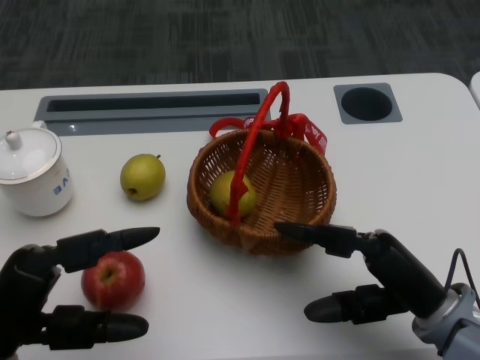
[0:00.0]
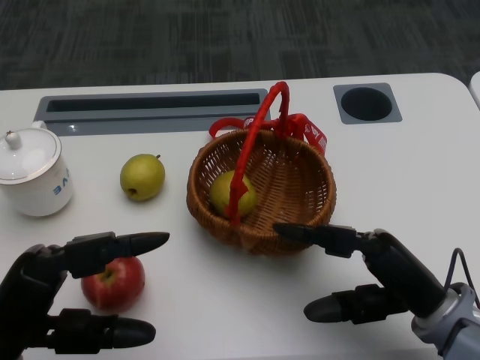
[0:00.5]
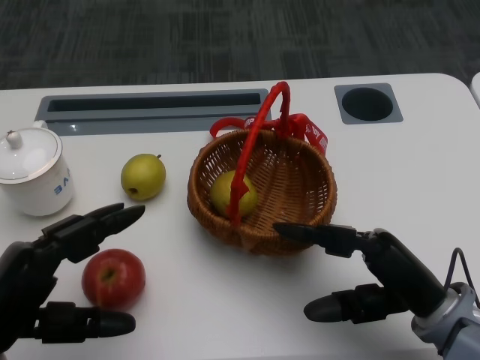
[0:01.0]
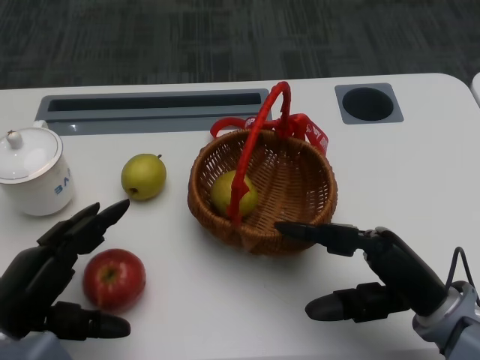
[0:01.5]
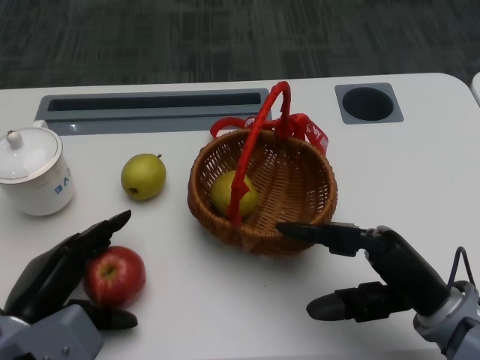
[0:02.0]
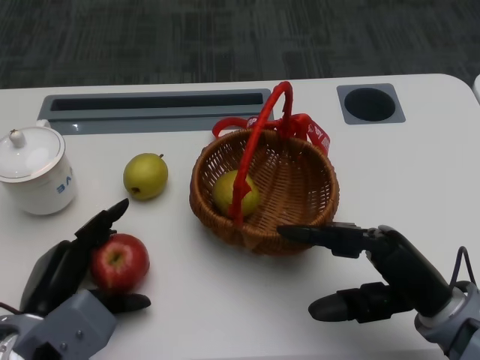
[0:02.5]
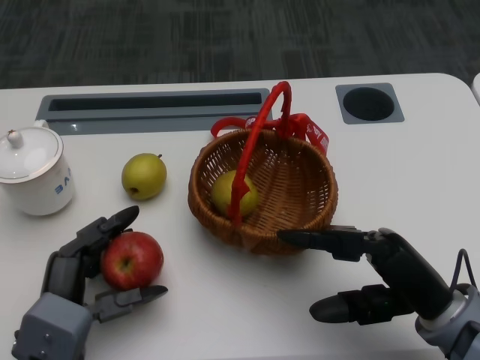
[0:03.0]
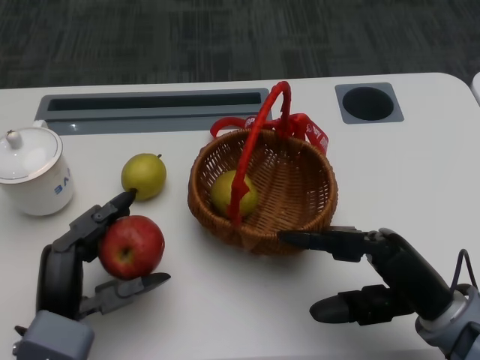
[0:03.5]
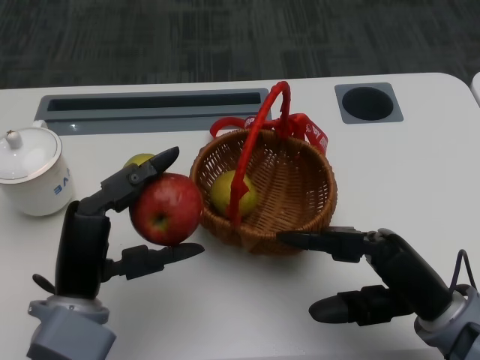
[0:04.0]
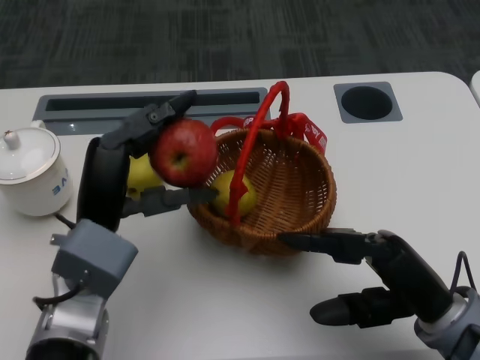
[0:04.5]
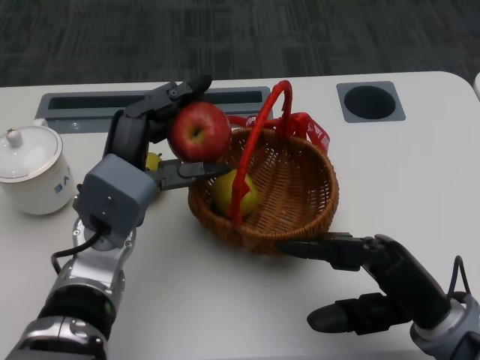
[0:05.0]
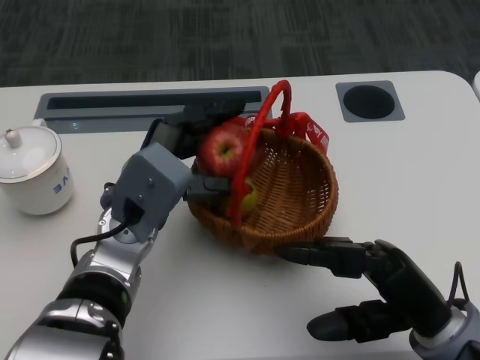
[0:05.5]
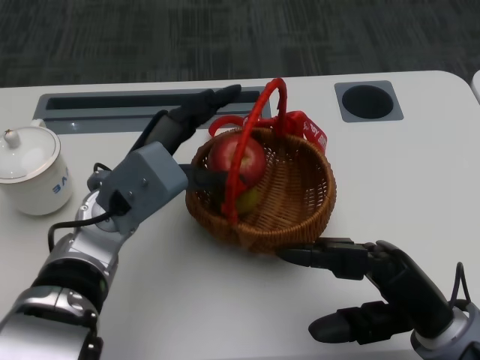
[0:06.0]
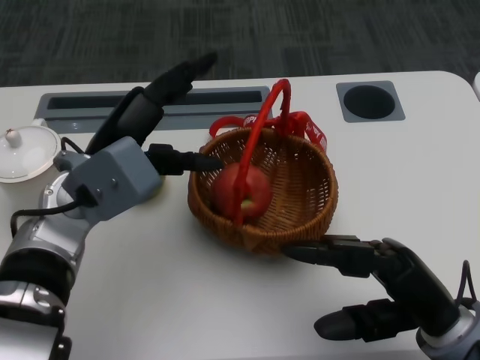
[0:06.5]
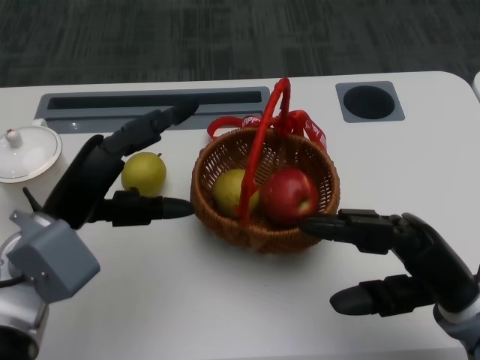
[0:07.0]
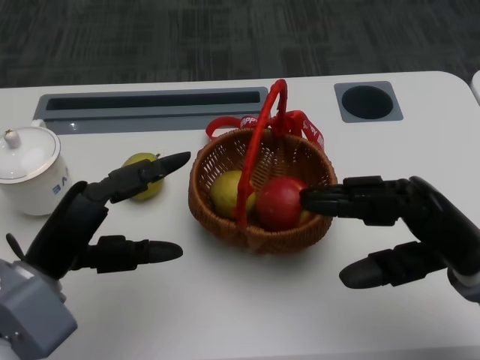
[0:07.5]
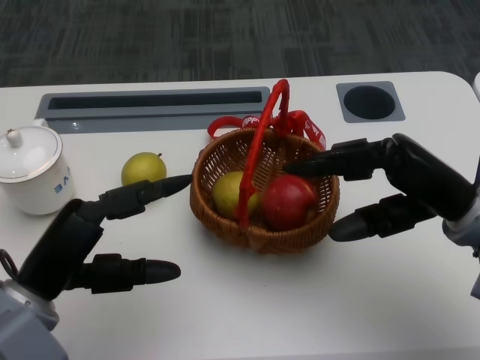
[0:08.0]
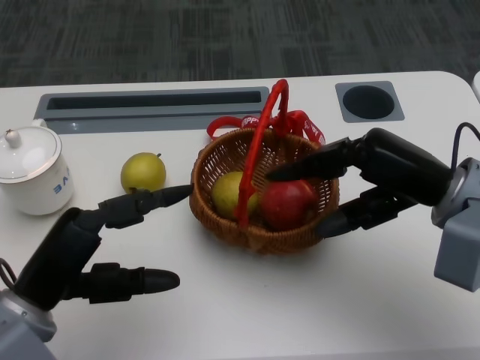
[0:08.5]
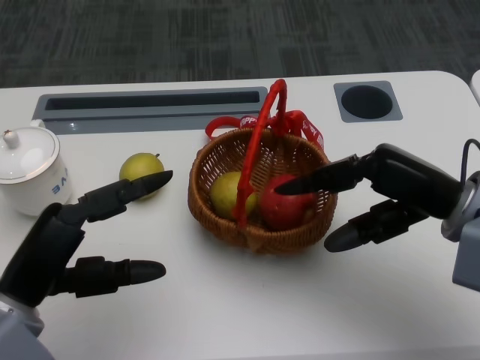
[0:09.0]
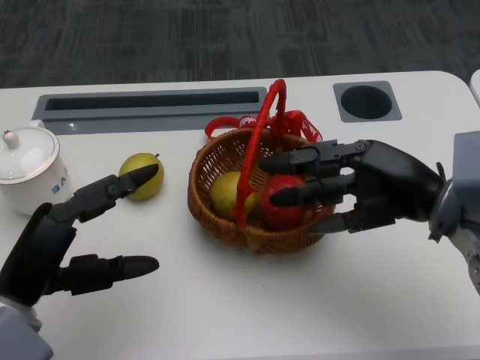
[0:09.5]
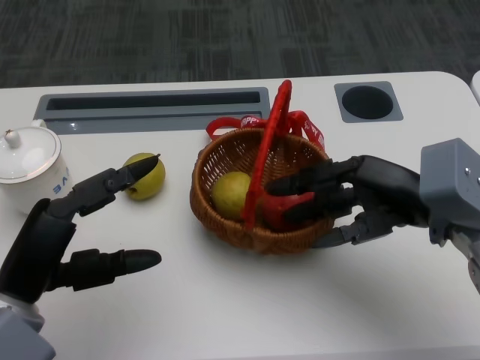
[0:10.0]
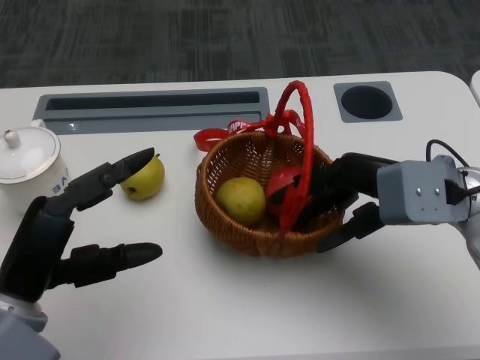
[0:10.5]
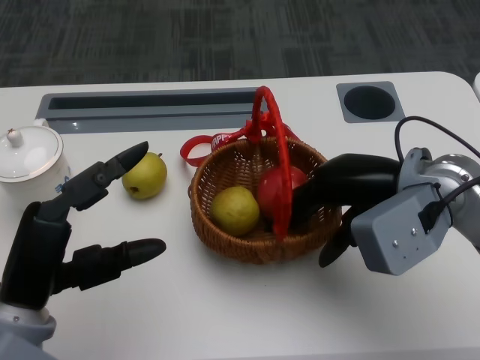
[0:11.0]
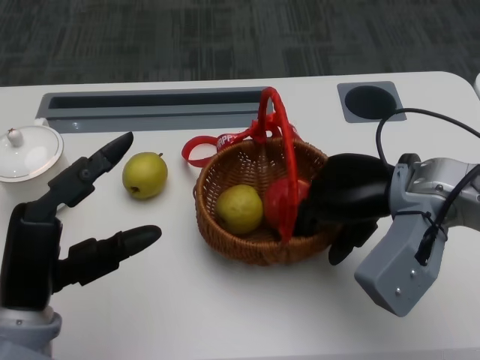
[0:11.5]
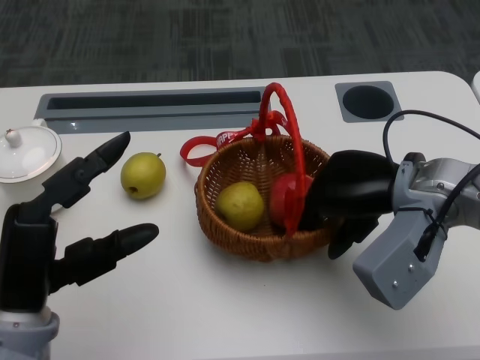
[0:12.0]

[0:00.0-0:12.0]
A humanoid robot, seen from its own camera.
Step, 0:01.0 to 0:01.5: Grasp the apple with the left gripper.
Step, 0:02.0 to 0:04.5: Place the apple into the basket with the left gripper.
Step, 0:05.0 to 0:09.0: Grasp the basket with the right gripper.
Step, 0:10.0 to 0:11.5: Move the basket to the front of the table with the right gripper.
0:02.0 to 0:04.0: The left hand goes roughly 5 cm to the right.
0:04.0 to 0:06.0: The left hand goes some 10 cm forward.
0:06.0 to 0:08.0: The right hand travels forward and upward by approximately 10 cm, while the left hand moves backward and to the left, roughly 15 cm.

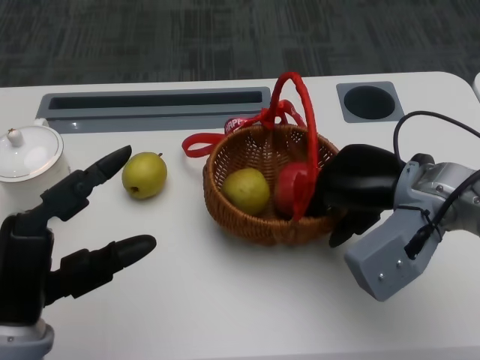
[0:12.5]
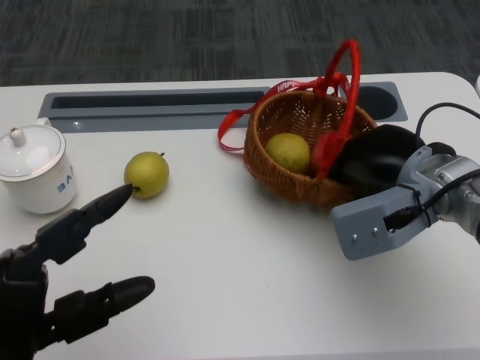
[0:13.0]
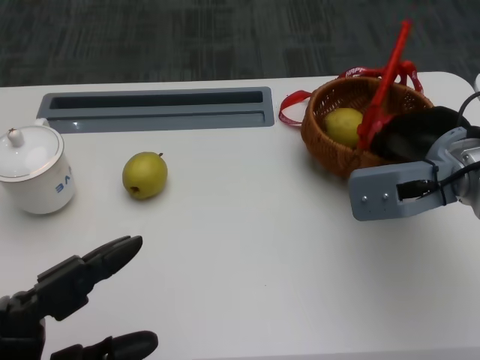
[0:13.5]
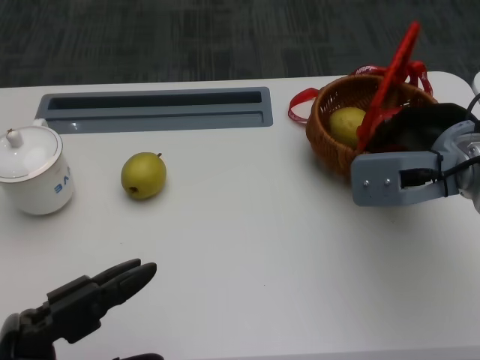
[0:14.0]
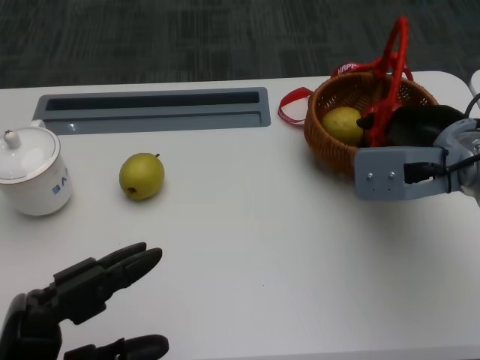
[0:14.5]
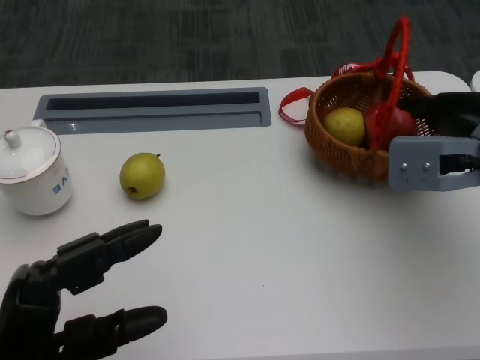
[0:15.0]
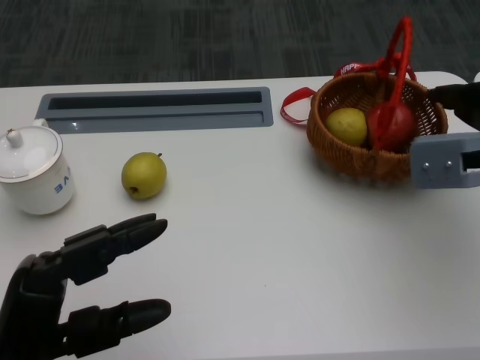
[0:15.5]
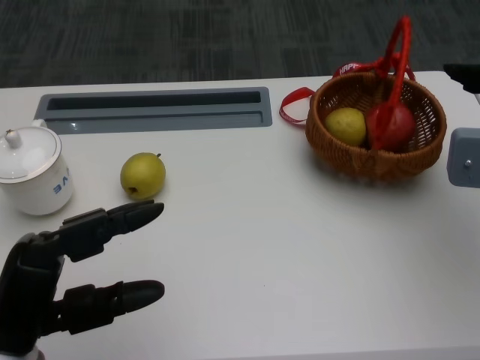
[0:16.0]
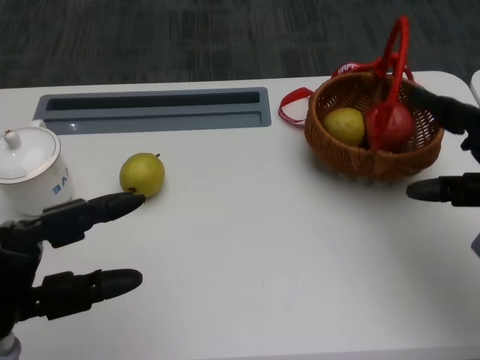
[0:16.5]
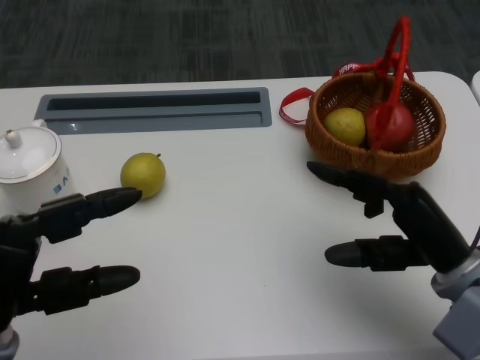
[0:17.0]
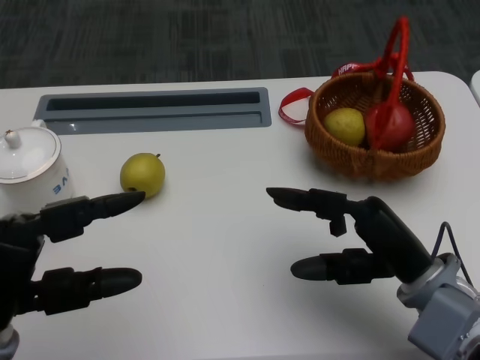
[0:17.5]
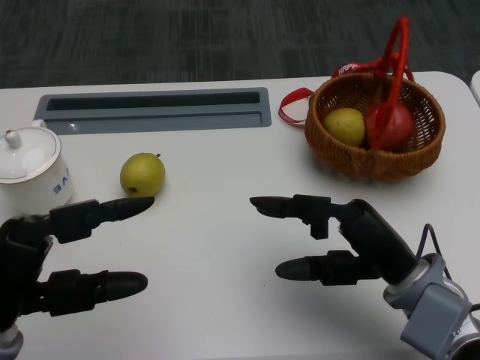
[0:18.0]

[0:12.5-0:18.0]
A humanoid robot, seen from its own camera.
0:12.5 to 0:14.5: The left hand shifts about 5 cm backward.
0:14.5 to 0:16.0: The right hand travels to the right by approximately 10 cm. Meanwhile the left hand shifts by approximately 5 cm.
0:16.0 to 0:18.0: The right hand travels to the left, downward and backward by approximately 20 cm.

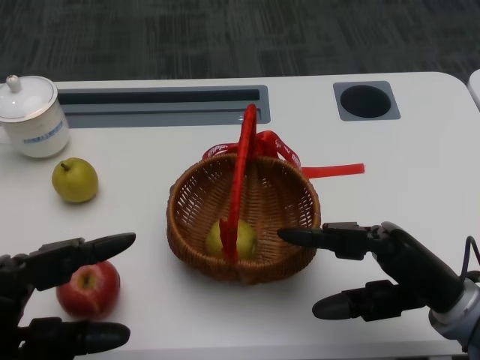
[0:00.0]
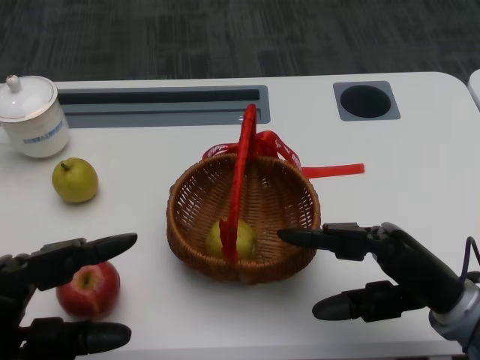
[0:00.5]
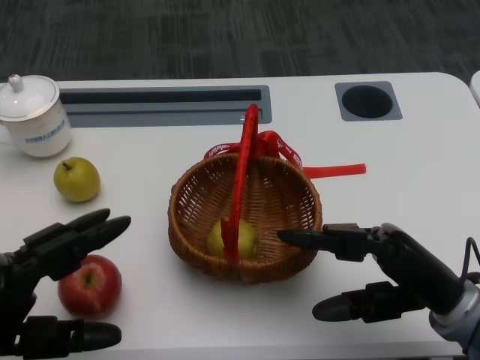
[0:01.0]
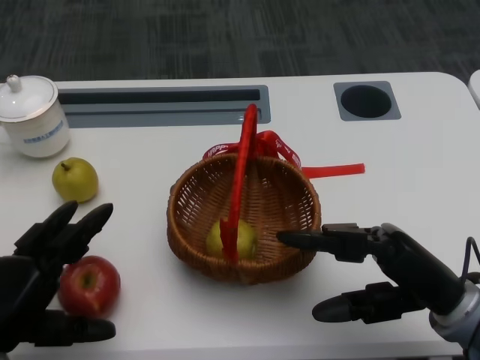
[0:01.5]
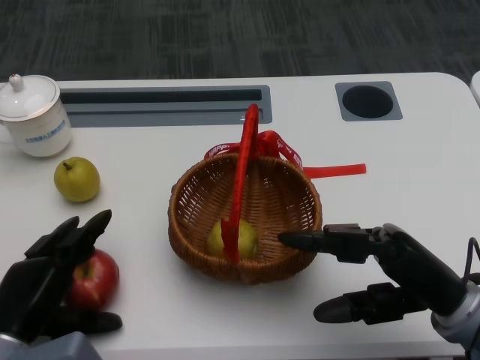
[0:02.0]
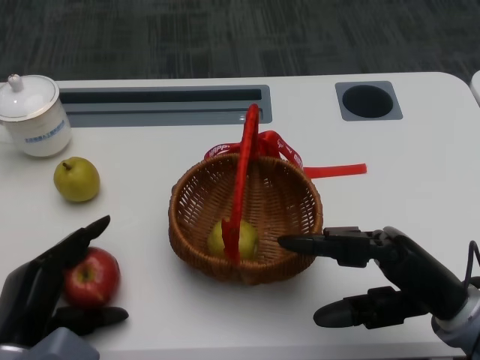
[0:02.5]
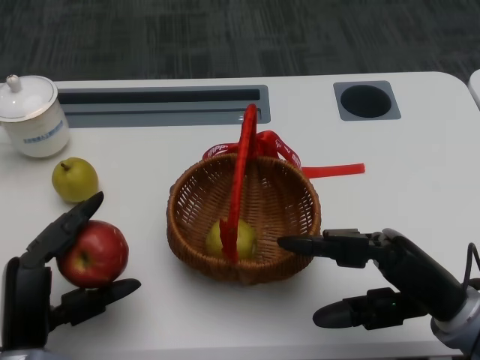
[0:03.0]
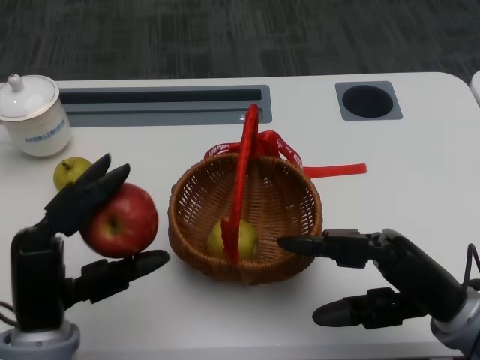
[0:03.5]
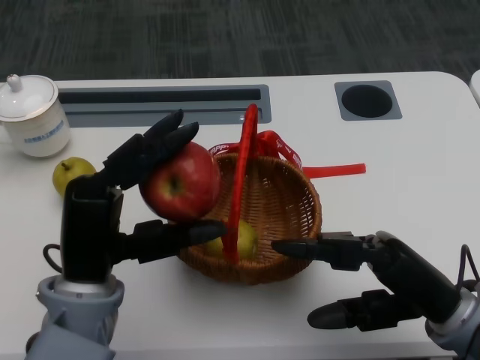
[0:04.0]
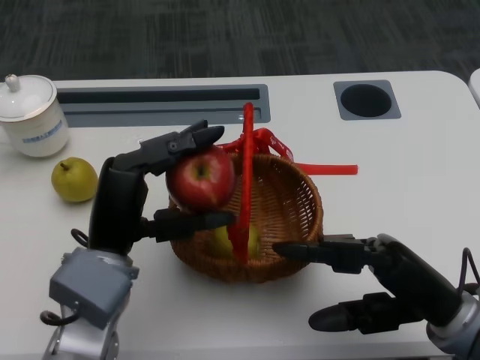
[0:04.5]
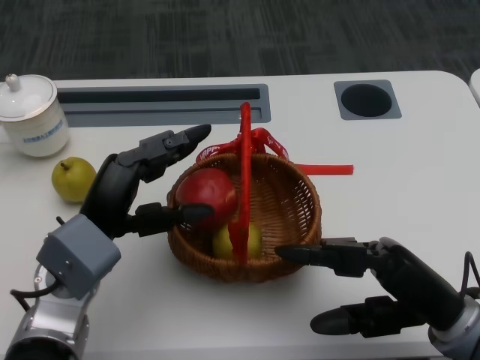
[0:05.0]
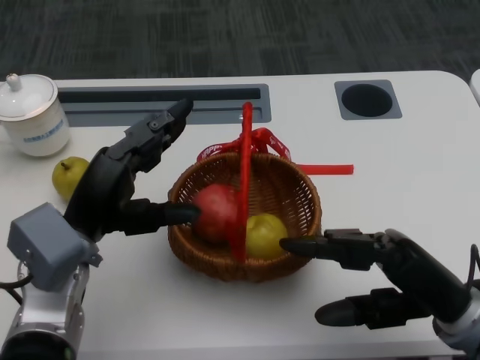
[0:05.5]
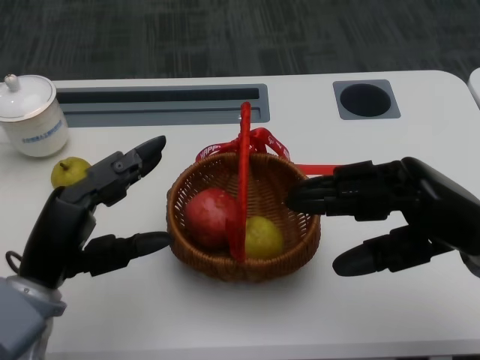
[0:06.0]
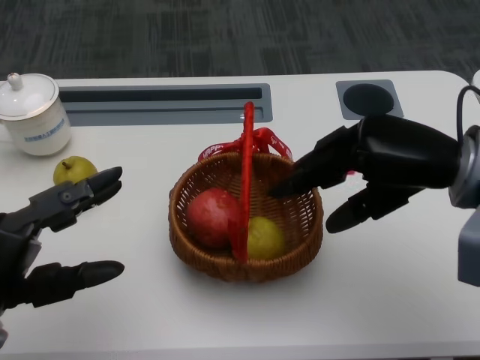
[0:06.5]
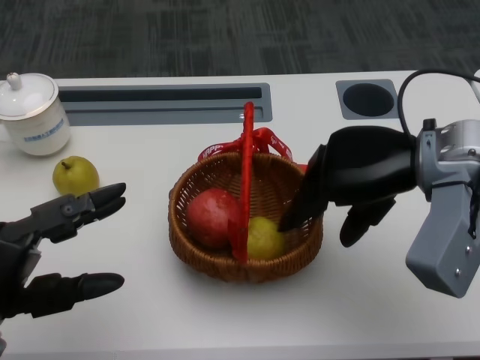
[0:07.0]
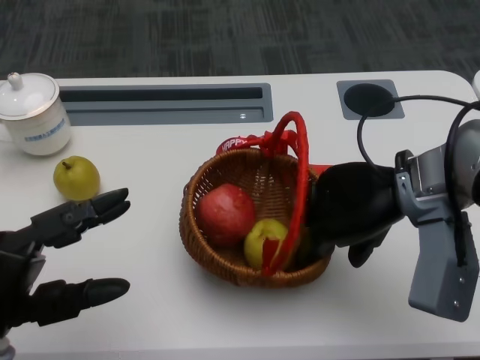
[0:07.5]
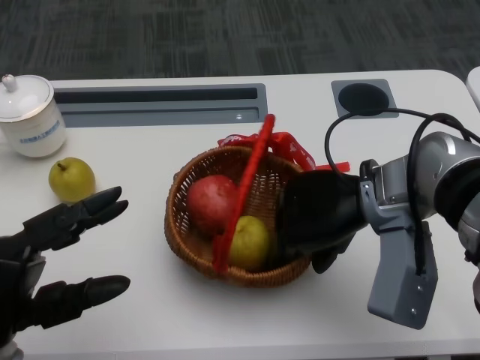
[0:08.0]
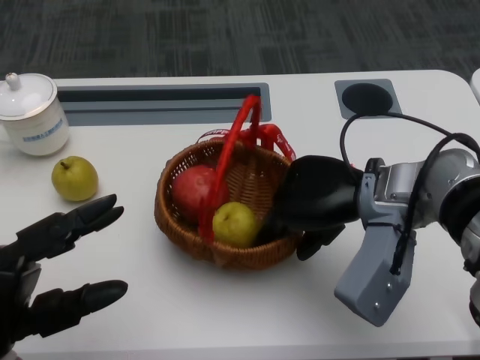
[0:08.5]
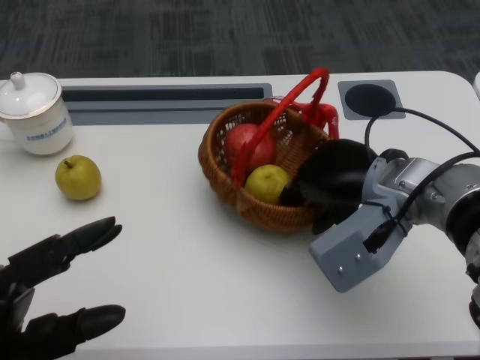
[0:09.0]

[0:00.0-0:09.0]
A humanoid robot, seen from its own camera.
Step, 0:00.5 to 0:01.5: Grasp the apple with the left gripper.
Step, 0:02.5 to 0:03.5: Place the apple into the basket with the left gripper.
Step, 0:04.0 to 0:06.0: Grasp the basket with the right gripper.
Step, 0:06.5 to 0:08.5: Move the basket to the front of the table with the right gripper.
0:02.0 to 0:04.5: The left hand travels to the right and upward by some 15 cm.
0:04.5 to 0:07.0: The left hand is displaced to the left and backward by approximately 15 cm. Meanwhile the right hand heads forward and upward, covering some 15 cm.
0:07.0 to 0:09.0: The right hand travels downward by approximately 5 cm.
